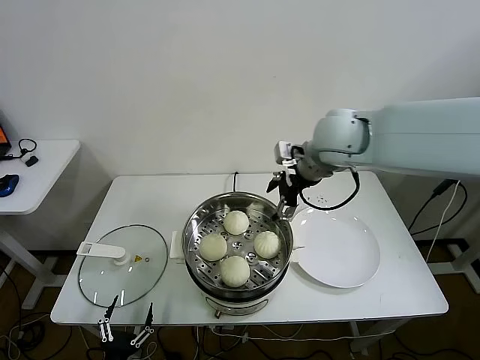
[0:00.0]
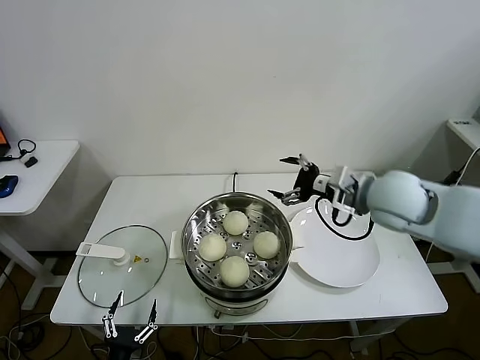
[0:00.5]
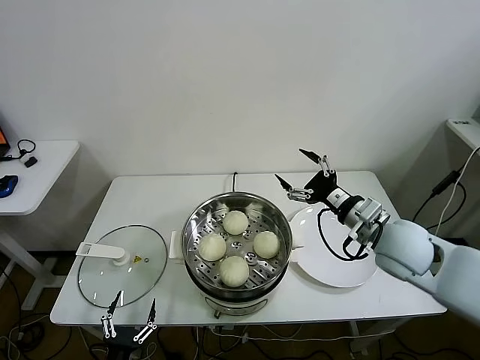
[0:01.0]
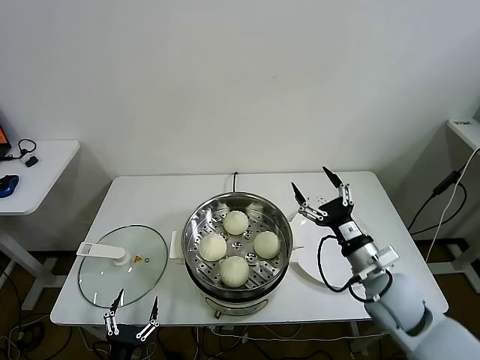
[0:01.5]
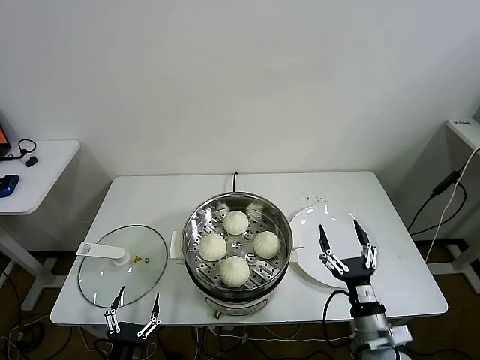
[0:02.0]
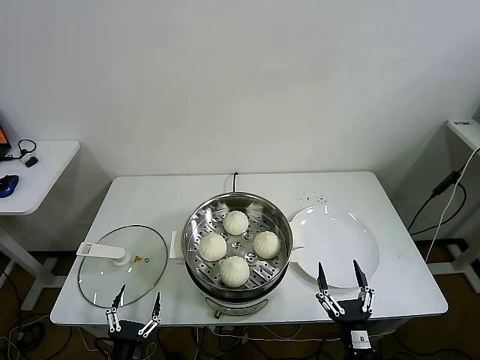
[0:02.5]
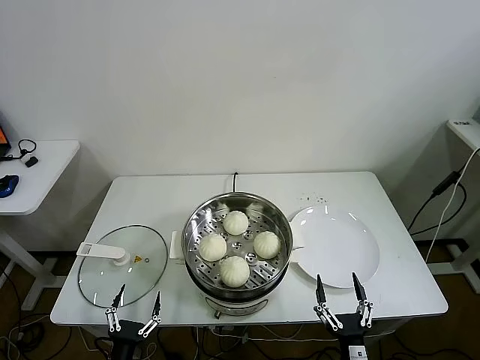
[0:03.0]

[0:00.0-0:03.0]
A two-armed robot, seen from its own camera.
Task of the whole recording: take steamed baozi put them in steamer.
0:00.0 to 0:01.5: The right gripper goes approximately 30 cm downward, backward and to the right.
0:01.5 to 0:03.0: The right gripper is displaced backward and downward by approximately 25 cm.

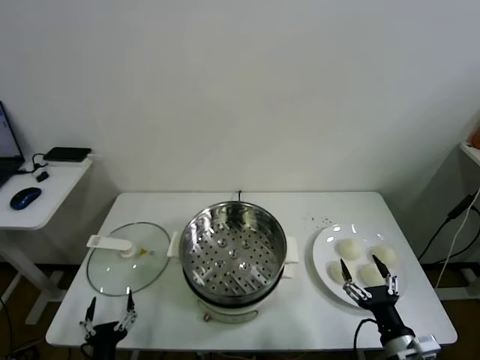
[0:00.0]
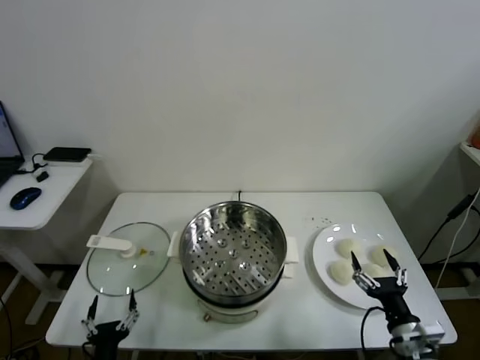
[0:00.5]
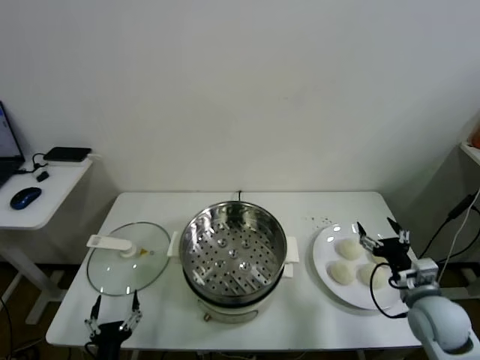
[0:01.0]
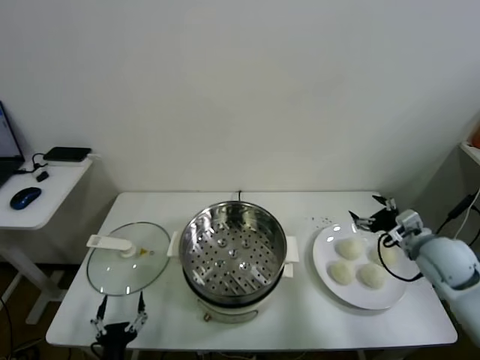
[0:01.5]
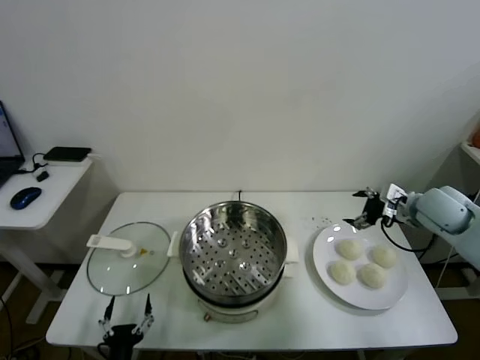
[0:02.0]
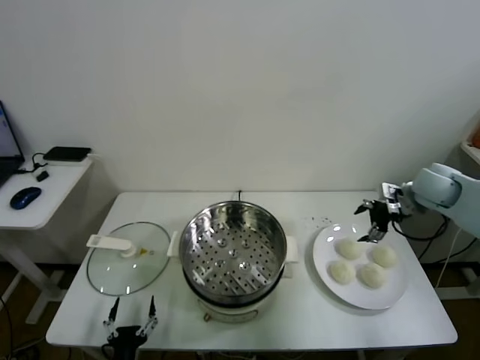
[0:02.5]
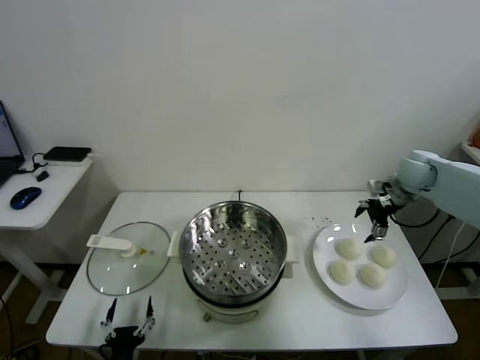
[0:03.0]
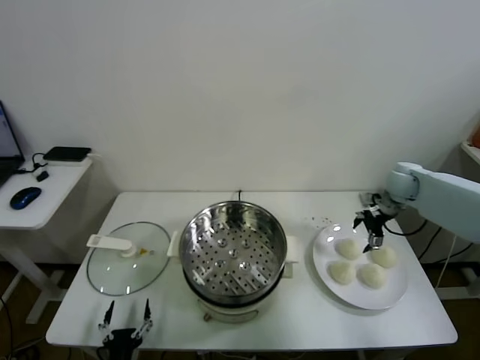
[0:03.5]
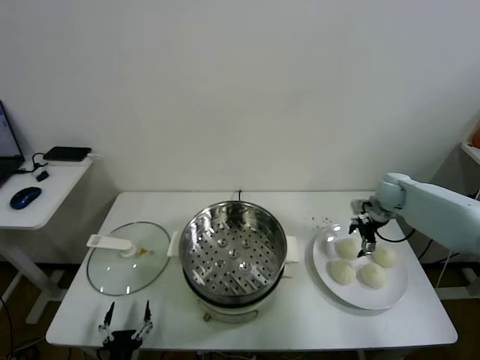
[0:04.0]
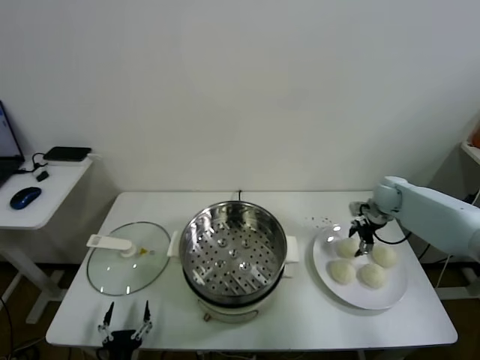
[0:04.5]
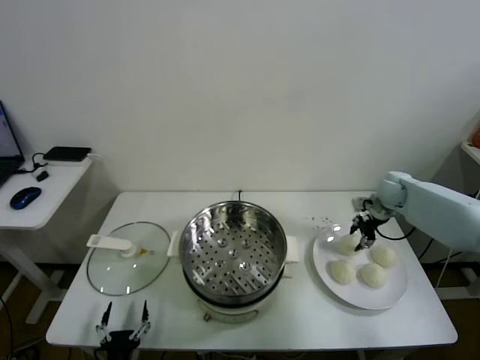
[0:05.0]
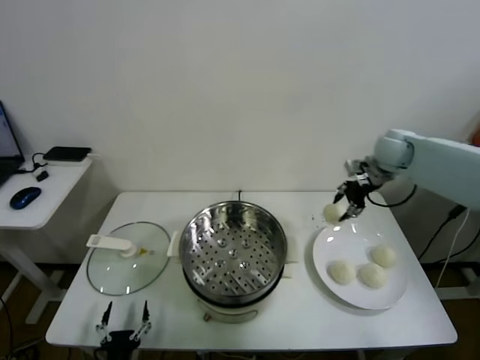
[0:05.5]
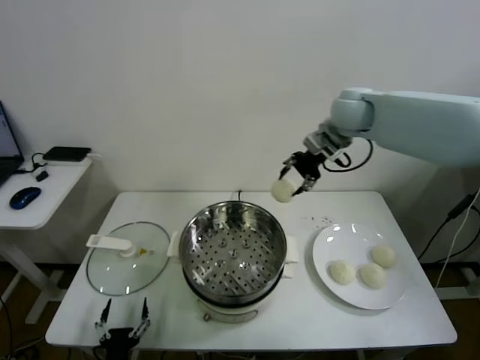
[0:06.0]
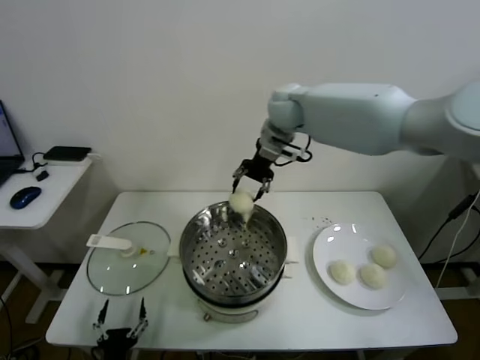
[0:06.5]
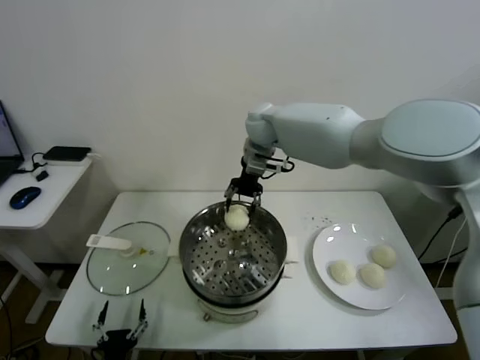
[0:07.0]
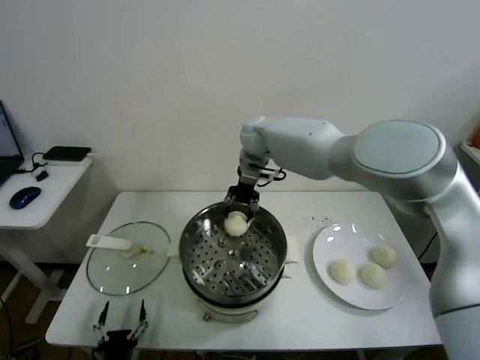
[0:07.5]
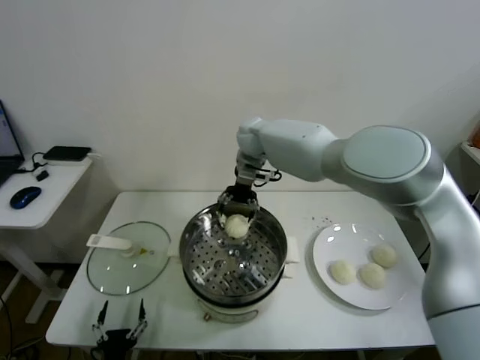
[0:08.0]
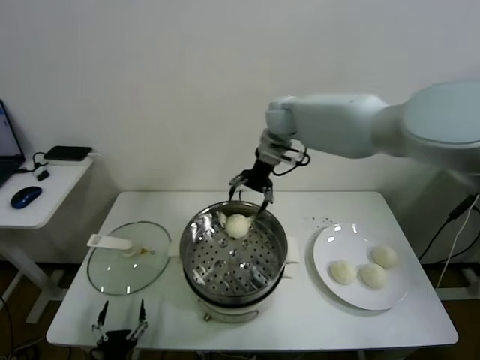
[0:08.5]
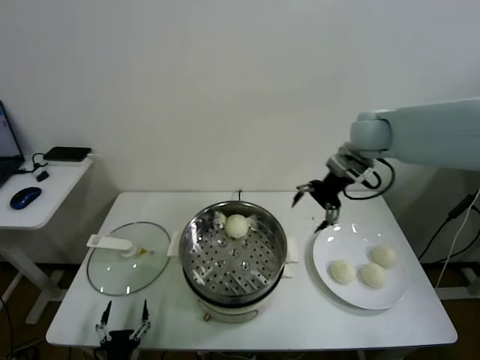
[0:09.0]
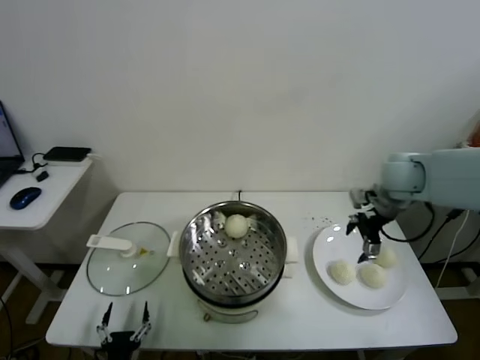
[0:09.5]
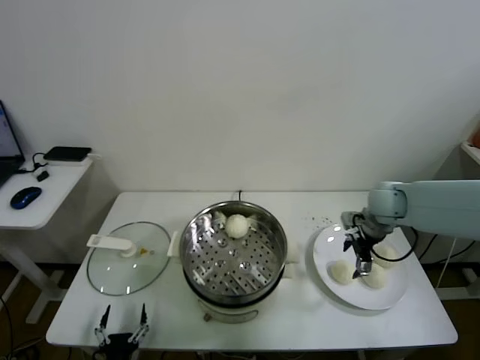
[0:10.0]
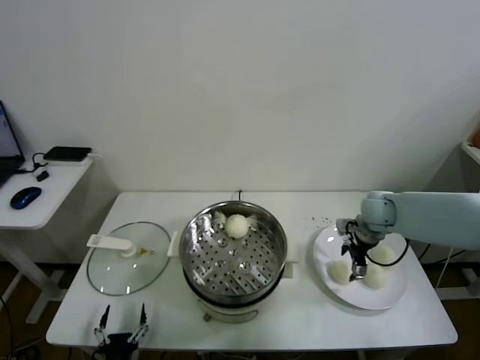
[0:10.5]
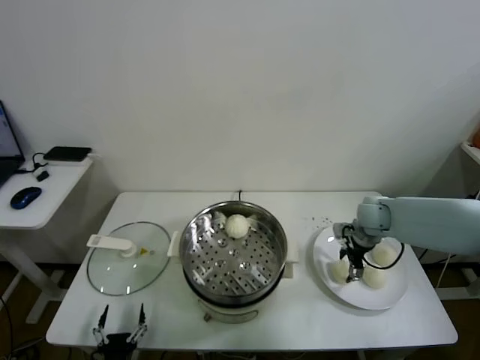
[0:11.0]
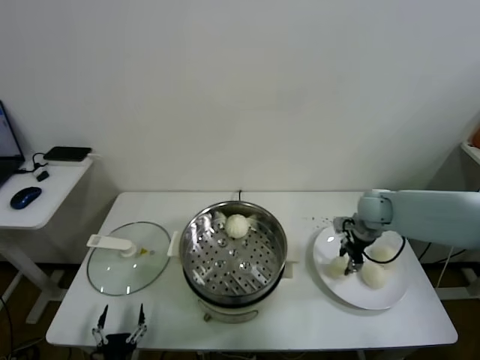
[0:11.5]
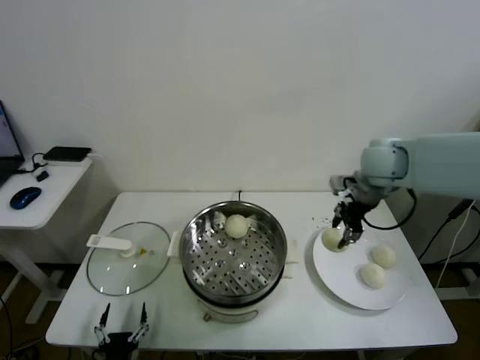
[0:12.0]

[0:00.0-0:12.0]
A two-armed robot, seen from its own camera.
Task of the whole recording: take steamed baozi put them in steamer.
Step, 0:00.0 to 0:04.5: Grasp the baozi in the plate with right gripper.
Step, 0:05.0 to 0:08.0: Place the baozi on the steamer with right gripper.
Step, 0:08.5 to 0:11.0: Grasp the baozi in the plate with right gripper.
0:02.0 to 0:04.0: The right gripper heads forward and downward, covering some 15 cm.
0:04.0 to 0:06.0: The right gripper moves upward and to the left, about 30 cm, and closes its fingers.
0:06.0 to 0:08.0: The right gripper shifts roughly 20 cm to the left and downward, and opens up.
0:08.0 to 0:10.0: The right gripper moves to the right and backward, approximately 35 cm.
0:10.0 to 0:12.0: The right gripper travels upward and to the left by about 15 cm, and closes.

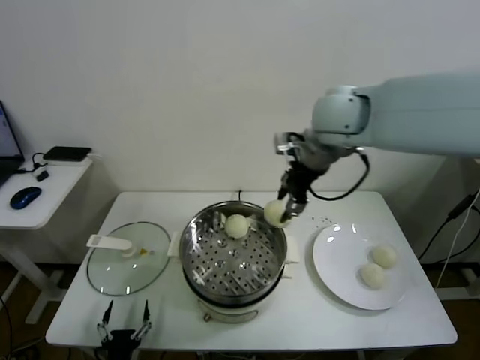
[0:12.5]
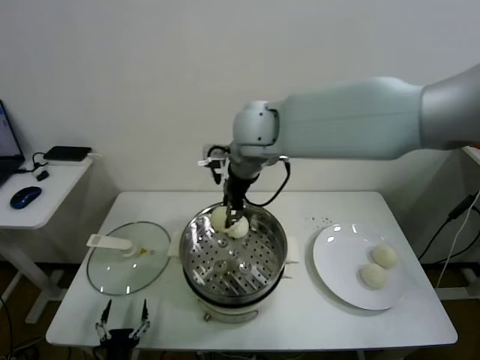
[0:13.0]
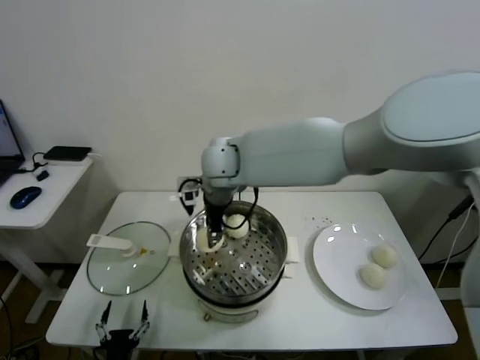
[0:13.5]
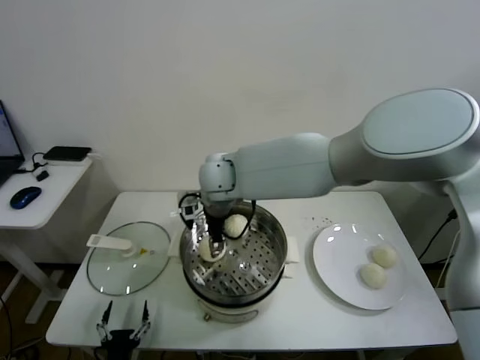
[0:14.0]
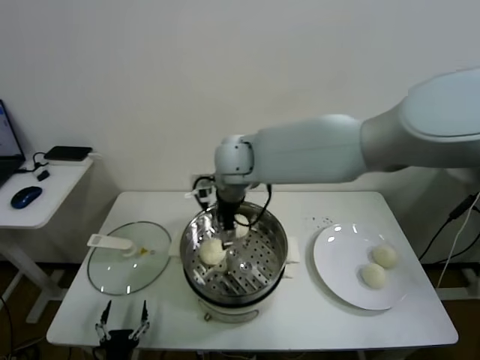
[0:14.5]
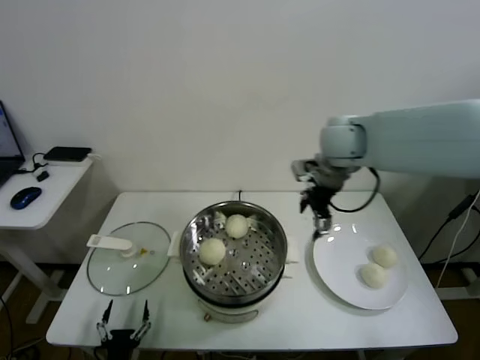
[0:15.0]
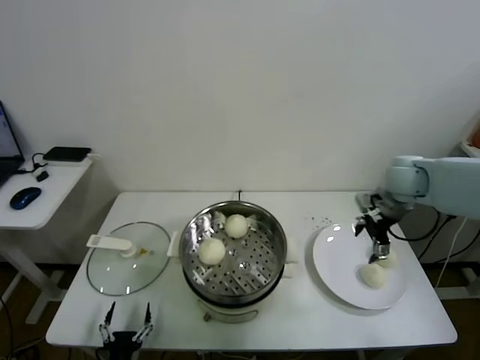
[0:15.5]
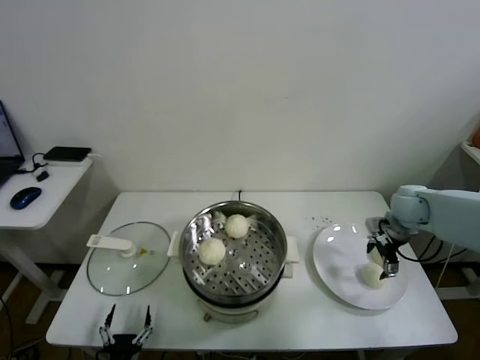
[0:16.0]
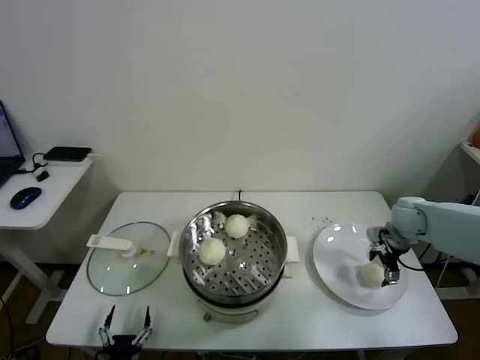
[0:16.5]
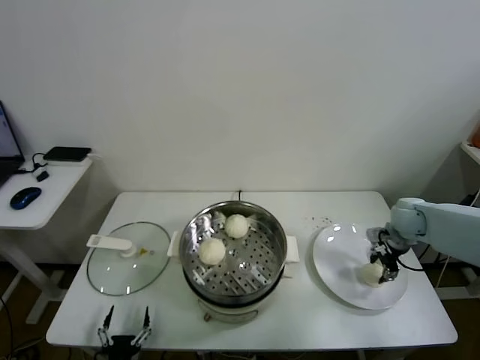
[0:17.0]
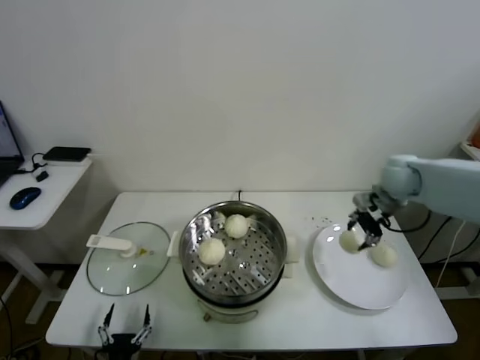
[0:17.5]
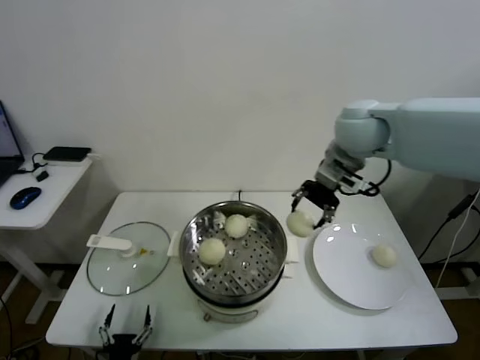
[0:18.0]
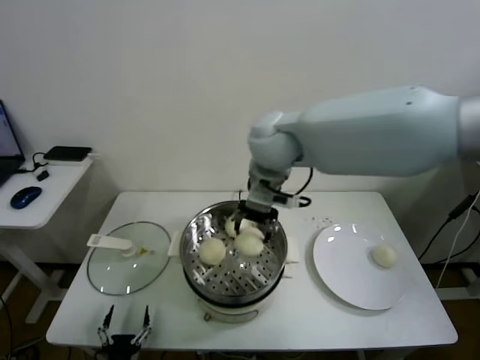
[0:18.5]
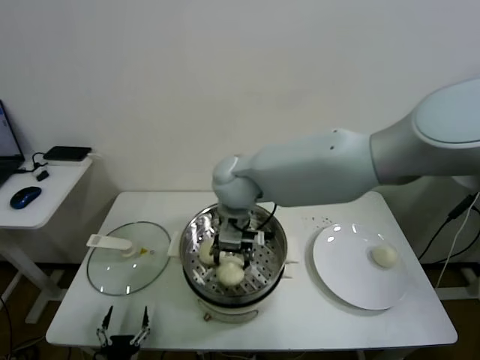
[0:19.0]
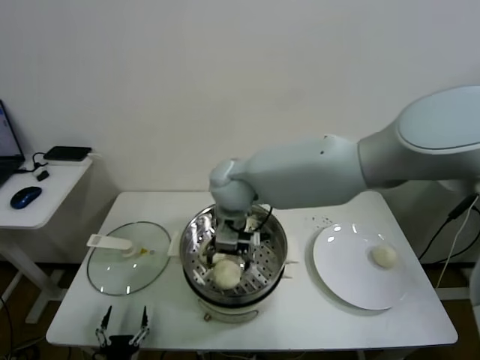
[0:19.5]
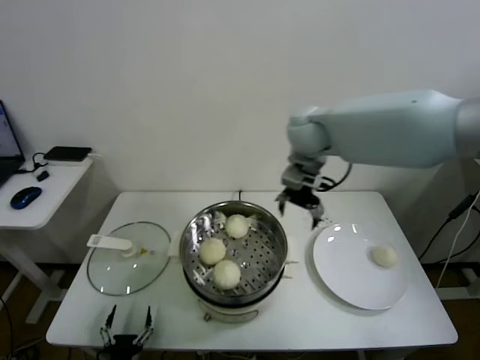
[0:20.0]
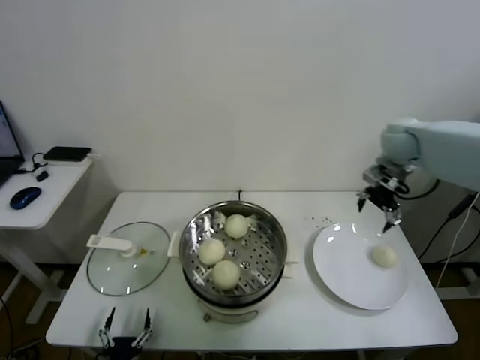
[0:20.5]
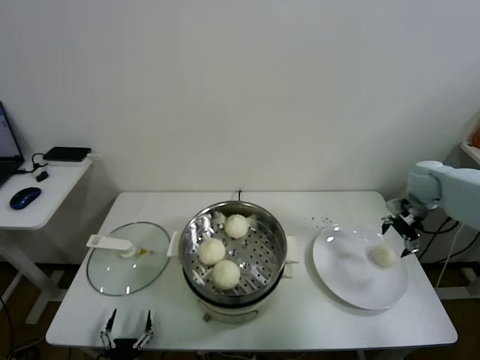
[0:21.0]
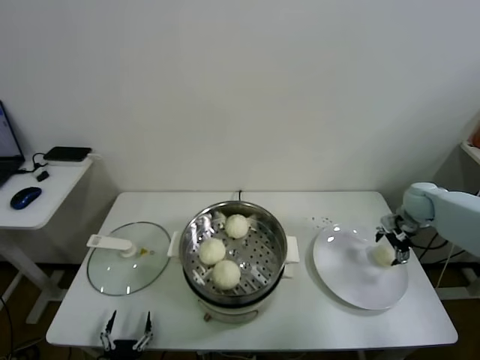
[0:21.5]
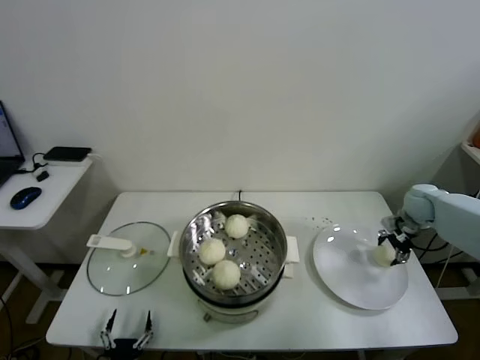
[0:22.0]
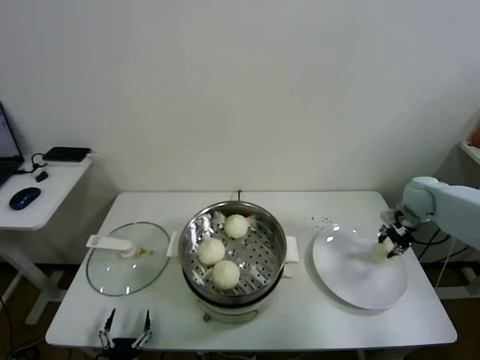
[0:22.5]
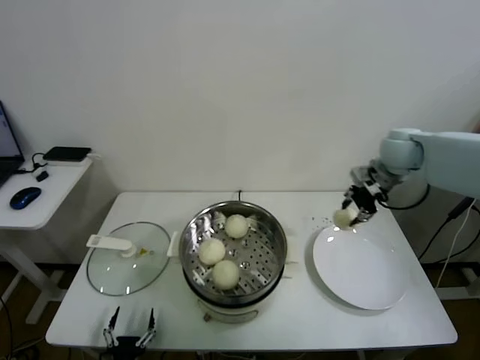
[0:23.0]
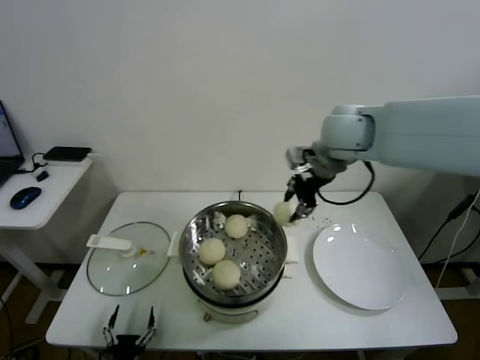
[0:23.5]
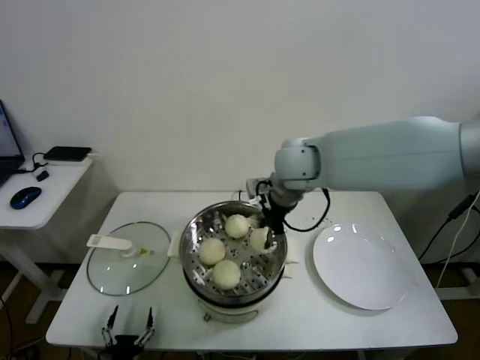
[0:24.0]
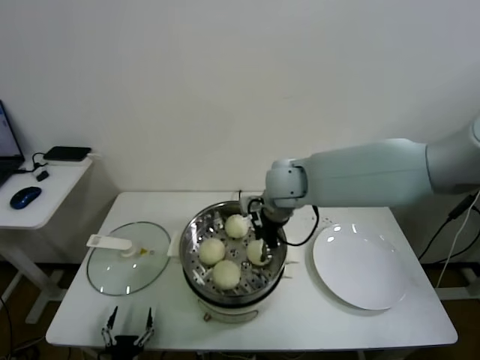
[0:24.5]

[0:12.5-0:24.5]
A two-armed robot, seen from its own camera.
Task of the whole recording: take steamed baozi put them in steamer.
Step, 0:12.5 to 0:14.0: Place the baozi on the steamer with right gripper.
Step, 0:14.5 to 0:16.5: Grasp the baozi in the plate with right gripper.
Step, 0:17.5 to 0:19.5: Place the baozi on the steamer with right gripper.
Step, 0:20.0 to 0:22.0: Grasp the baozi in the plate with right gripper.
0:12.5 to 0:14.5: The right gripper moves to the left and downward, approximately 20 cm, and opens its fingers.
0:14.5 to 0:16.5: The right gripper goes some 50 cm to the right and downward.
0:16.5 to 0:18.5: The right gripper shifts roughly 40 cm to the left and upward, and closes up.
0:18.5 to 0:20.5: The right gripper travels to the right by approximately 30 cm, and opens up.
0:20.5 to 0:22.5: The right gripper moves downward and to the right, some 20 cm, and closes up.
0:22.5 to 0:24.5: The right gripper shifts about 35 cm to the left.
